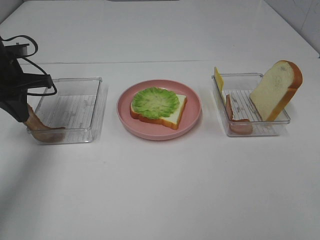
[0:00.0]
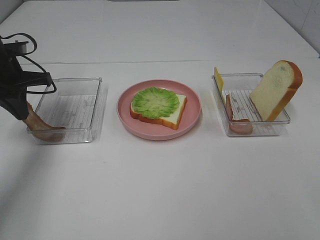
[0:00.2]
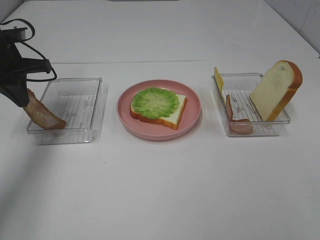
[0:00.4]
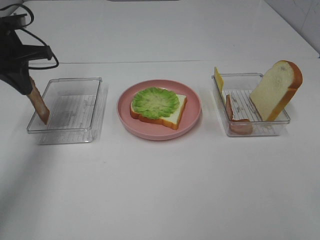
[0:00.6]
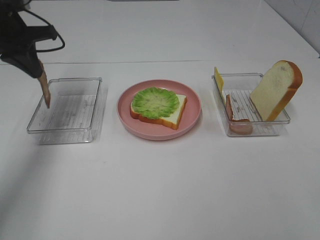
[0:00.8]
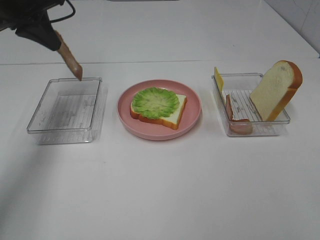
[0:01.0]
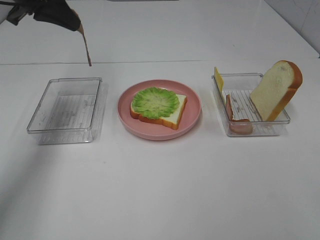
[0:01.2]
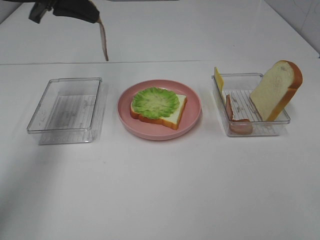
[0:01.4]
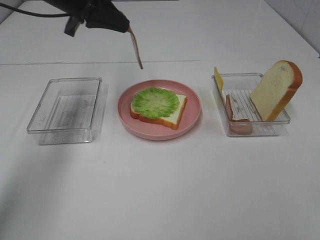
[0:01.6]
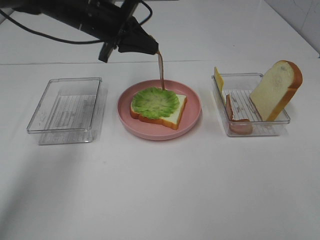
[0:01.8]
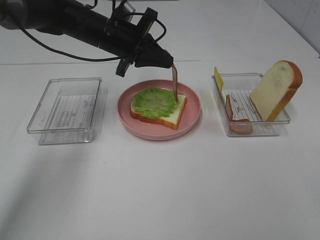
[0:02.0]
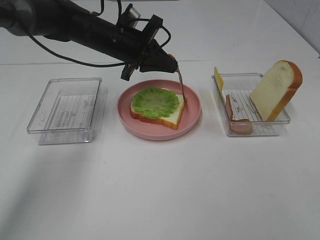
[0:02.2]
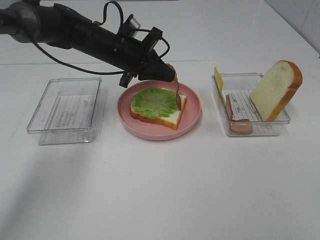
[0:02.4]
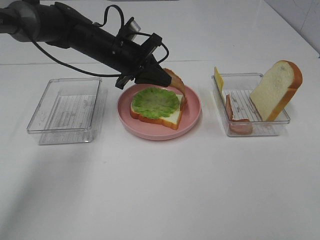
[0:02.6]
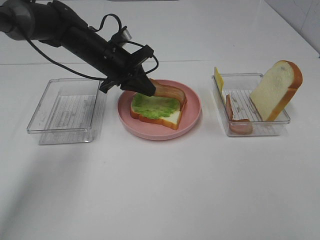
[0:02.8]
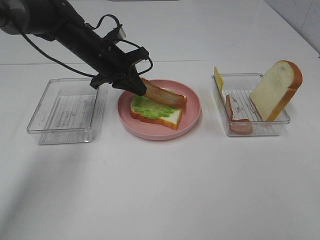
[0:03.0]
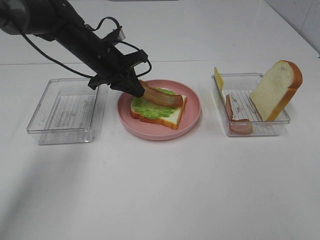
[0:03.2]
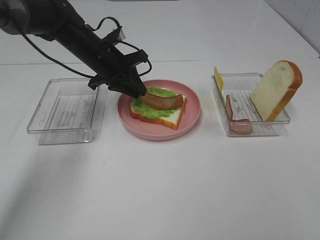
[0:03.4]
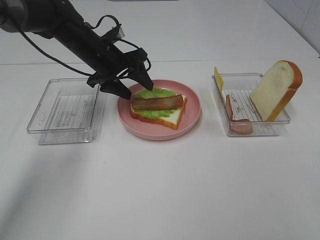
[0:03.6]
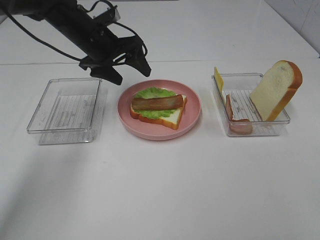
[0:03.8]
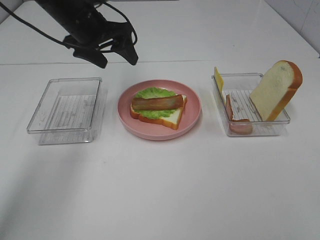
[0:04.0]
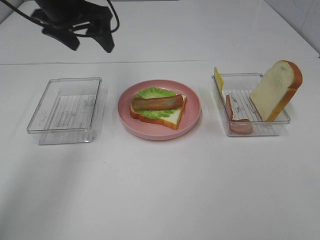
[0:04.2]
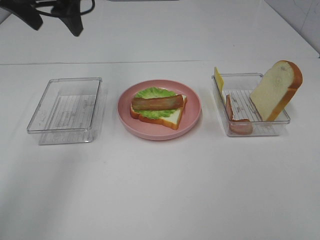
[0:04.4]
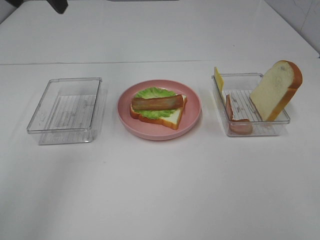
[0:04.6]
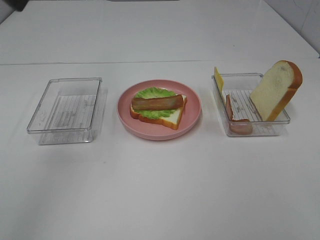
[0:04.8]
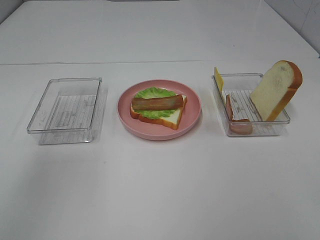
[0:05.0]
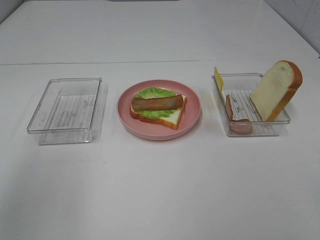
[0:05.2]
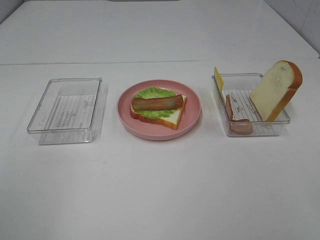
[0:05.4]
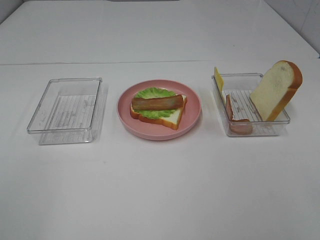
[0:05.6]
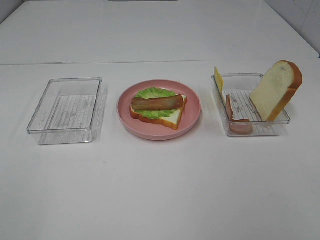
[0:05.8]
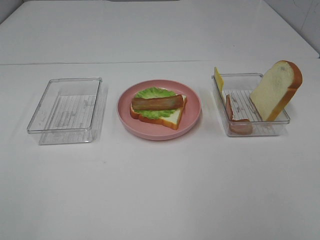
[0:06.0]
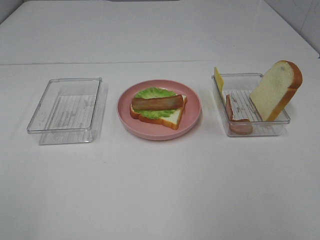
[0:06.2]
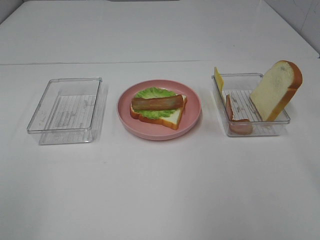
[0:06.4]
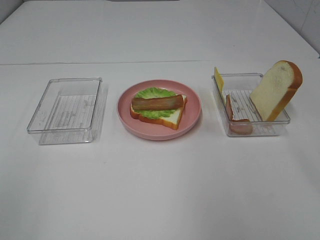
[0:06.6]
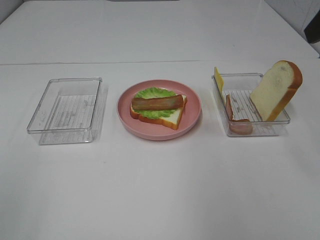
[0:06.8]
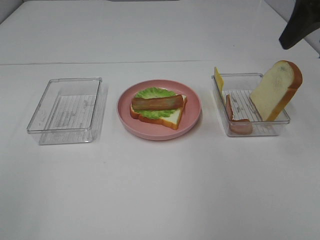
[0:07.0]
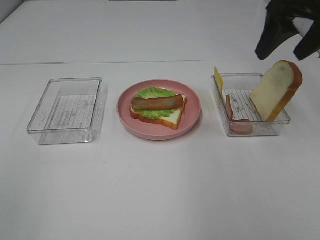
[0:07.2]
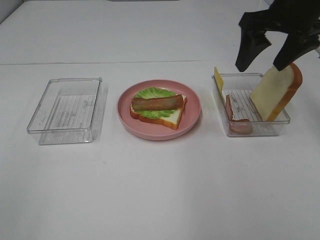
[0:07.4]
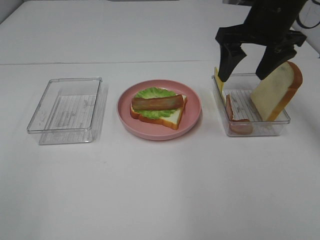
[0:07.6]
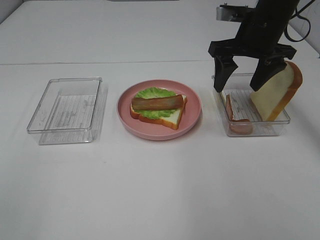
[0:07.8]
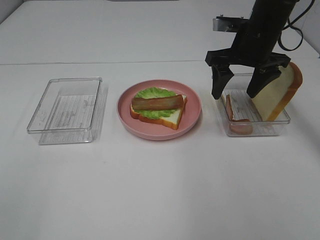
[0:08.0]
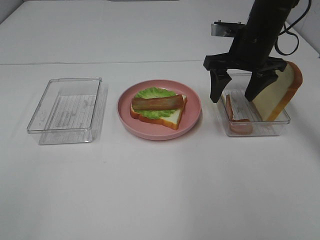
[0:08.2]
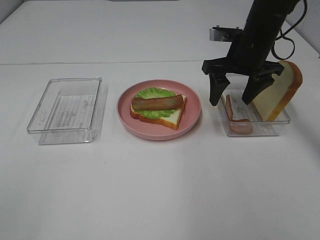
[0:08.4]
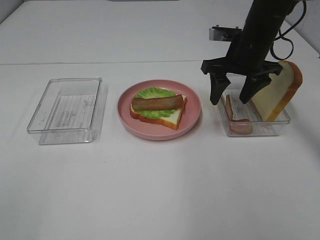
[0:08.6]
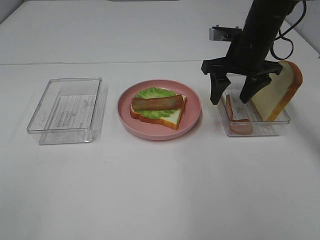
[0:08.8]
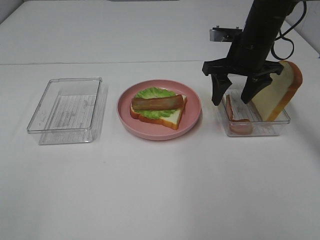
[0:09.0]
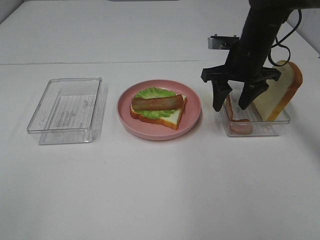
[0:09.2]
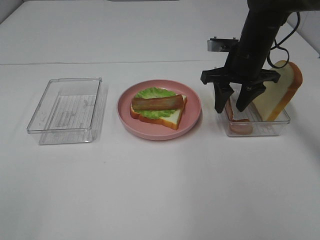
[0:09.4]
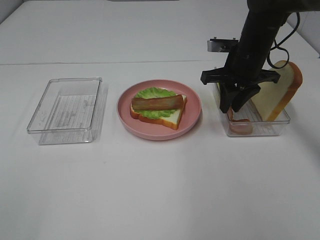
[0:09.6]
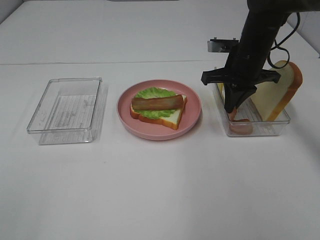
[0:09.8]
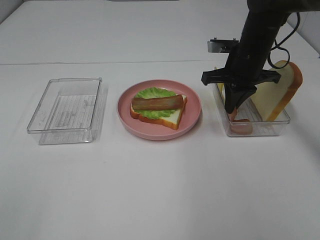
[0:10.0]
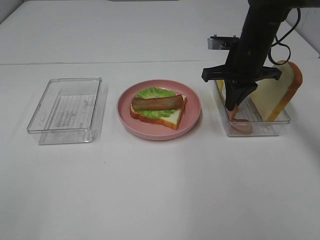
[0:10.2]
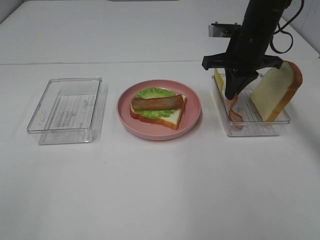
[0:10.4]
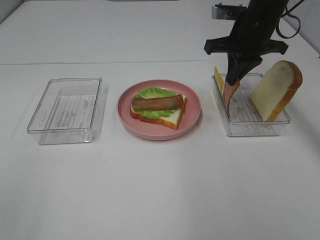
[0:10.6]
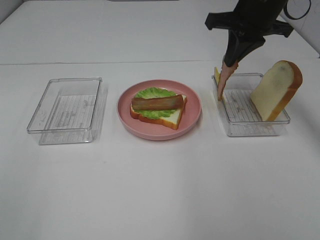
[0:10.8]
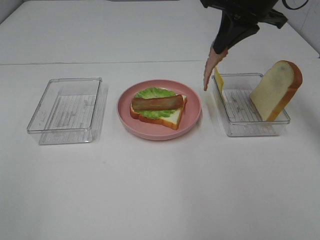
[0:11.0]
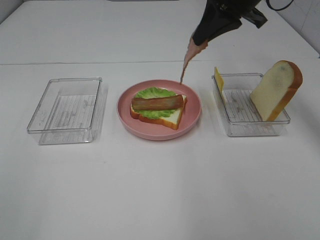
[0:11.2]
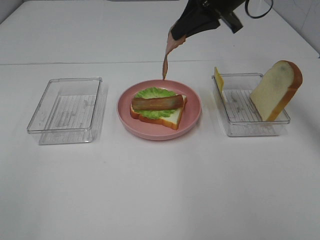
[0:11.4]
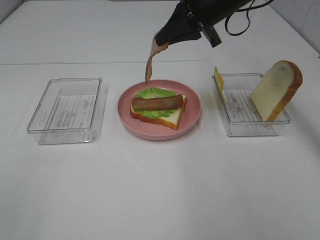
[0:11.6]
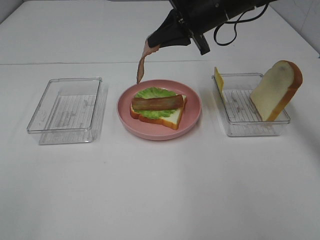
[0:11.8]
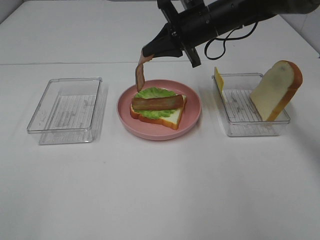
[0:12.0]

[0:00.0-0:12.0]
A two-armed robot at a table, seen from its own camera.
Task of the whole recording: Make sandwiches.
Step, 0:00.0 to 0:03.6: Left hand:place bacon on lettuce slice.
Step, 0:03.8 to 0:10.0: Right hand:grab the bacon.
0:00.0 to 0:01.6: The left gripper goes about 15 cm to the right, upward and forward.
0:01.6 to 0:03.0: The left gripper travels downward by approximately 10 cm.
0:03.0 to 0:04.4: The left gripper travels upward by some 20 cm, and opens its fingers.
0:04.4 to 0:06.0: The left gripper moves backward, about 40 cm.
0:06.0 to 0:07.6: The right gripper goes some 35 cm forward.
0:07.6 to 0:09.0: The right gripper shifts approximately 10 cm downward.
0:09.0 to 0:10.4: The right gripper closes up.
0:10.4 to 0:12.0: The right gripper moves to the left, roughly 5 cm, and travels upward and back again, about 10 cm each way.

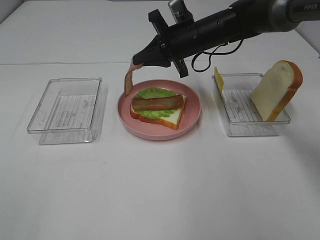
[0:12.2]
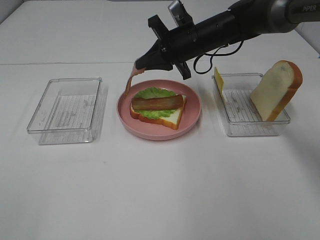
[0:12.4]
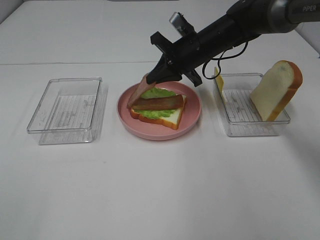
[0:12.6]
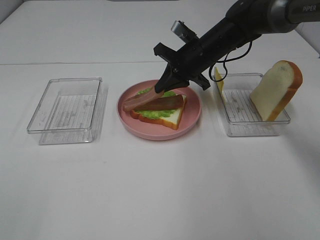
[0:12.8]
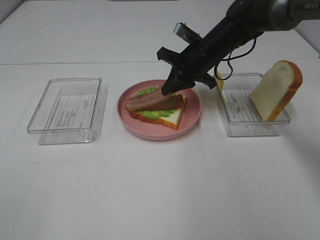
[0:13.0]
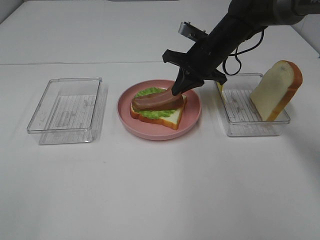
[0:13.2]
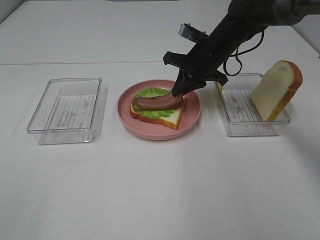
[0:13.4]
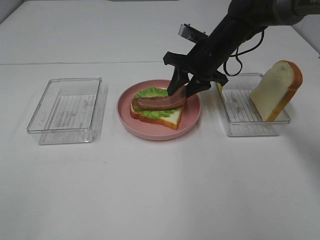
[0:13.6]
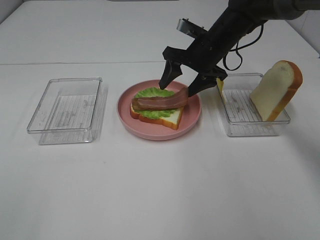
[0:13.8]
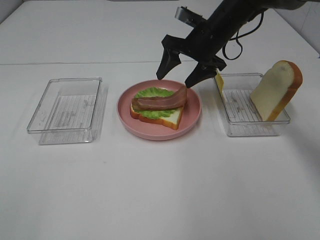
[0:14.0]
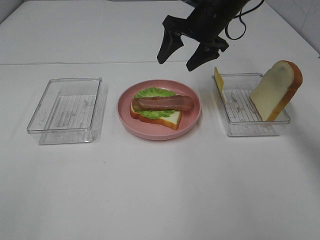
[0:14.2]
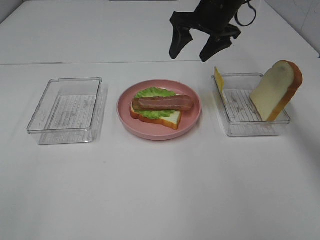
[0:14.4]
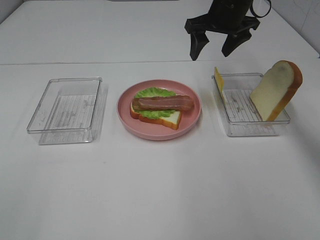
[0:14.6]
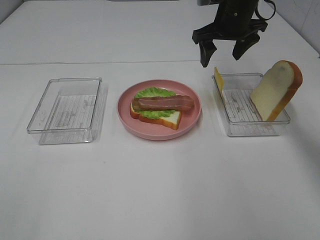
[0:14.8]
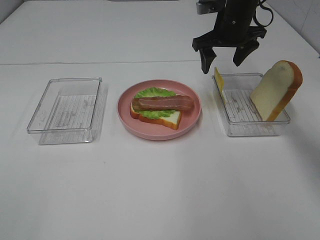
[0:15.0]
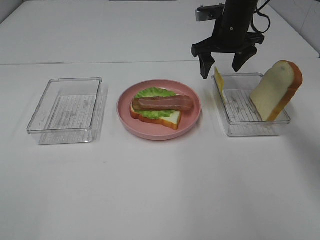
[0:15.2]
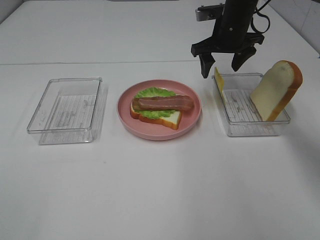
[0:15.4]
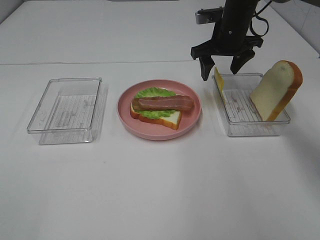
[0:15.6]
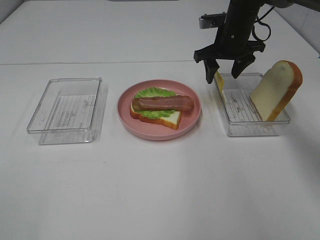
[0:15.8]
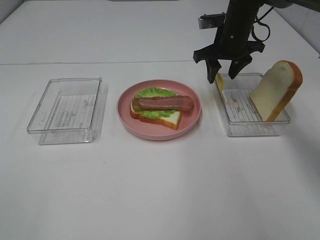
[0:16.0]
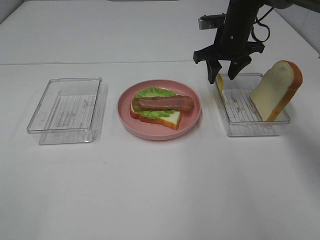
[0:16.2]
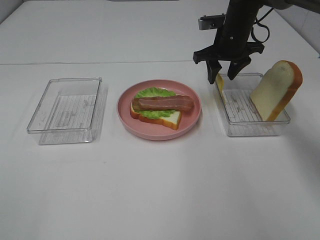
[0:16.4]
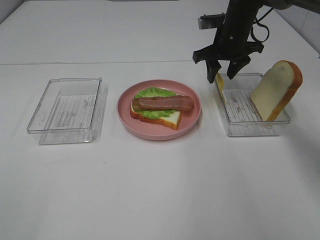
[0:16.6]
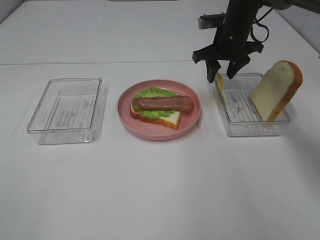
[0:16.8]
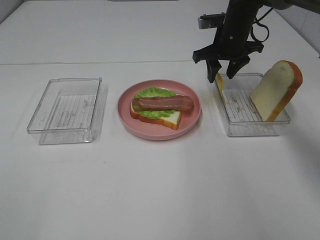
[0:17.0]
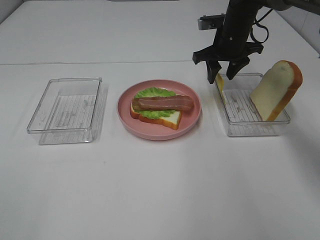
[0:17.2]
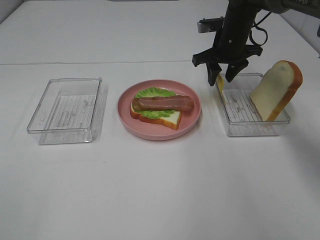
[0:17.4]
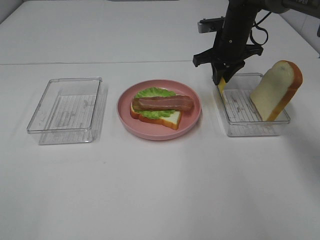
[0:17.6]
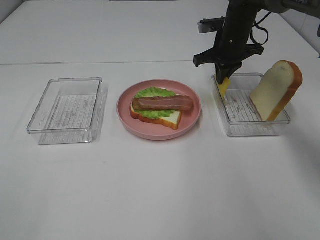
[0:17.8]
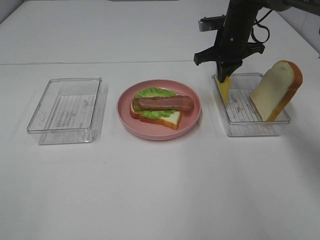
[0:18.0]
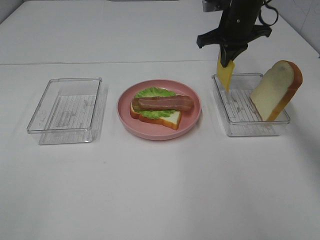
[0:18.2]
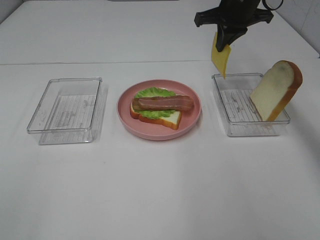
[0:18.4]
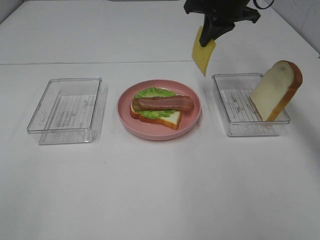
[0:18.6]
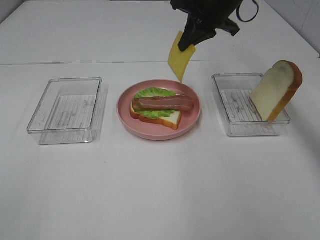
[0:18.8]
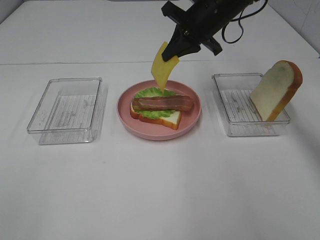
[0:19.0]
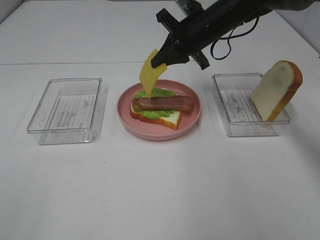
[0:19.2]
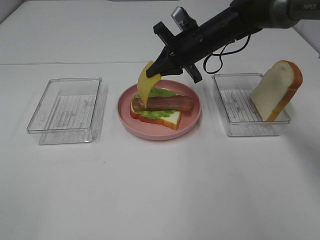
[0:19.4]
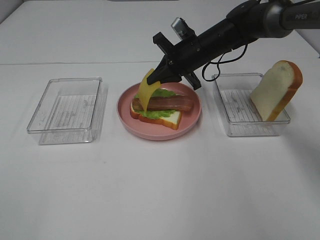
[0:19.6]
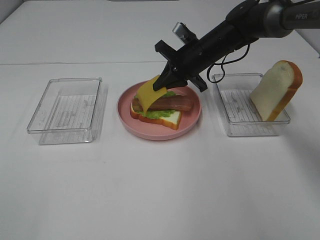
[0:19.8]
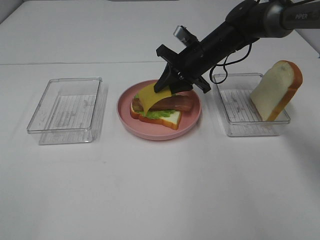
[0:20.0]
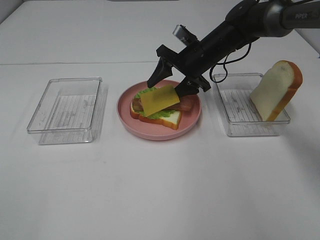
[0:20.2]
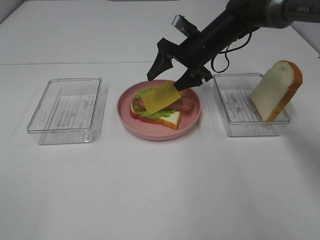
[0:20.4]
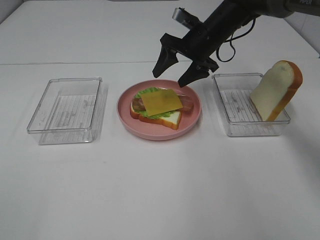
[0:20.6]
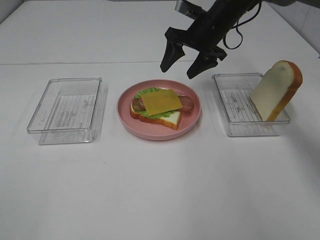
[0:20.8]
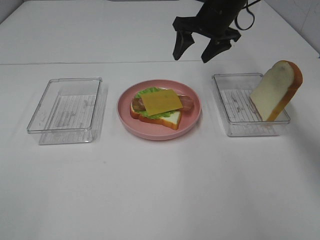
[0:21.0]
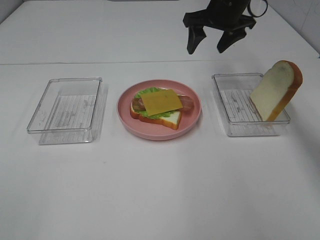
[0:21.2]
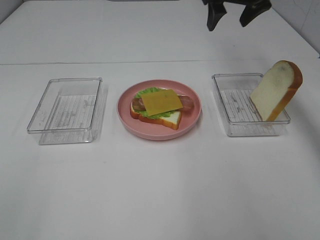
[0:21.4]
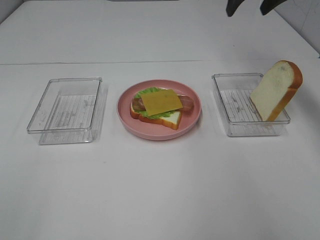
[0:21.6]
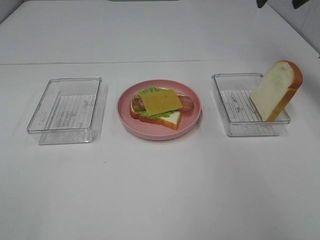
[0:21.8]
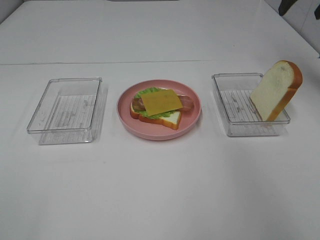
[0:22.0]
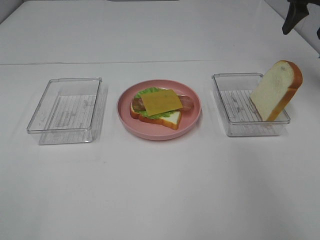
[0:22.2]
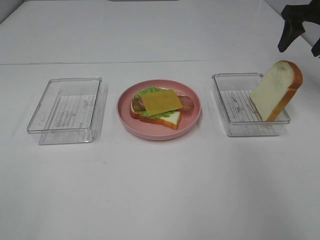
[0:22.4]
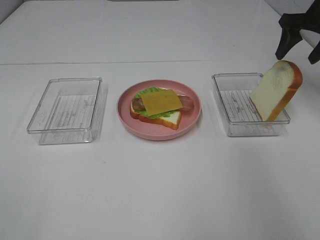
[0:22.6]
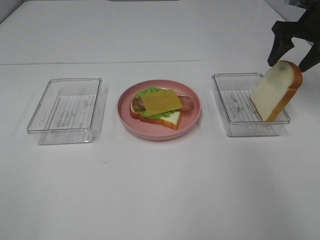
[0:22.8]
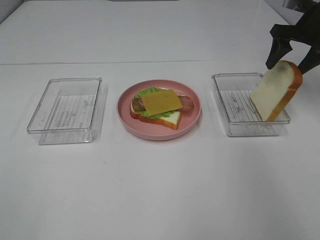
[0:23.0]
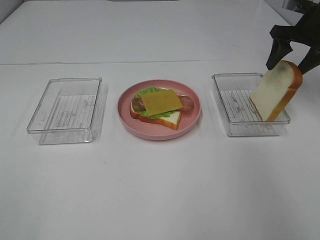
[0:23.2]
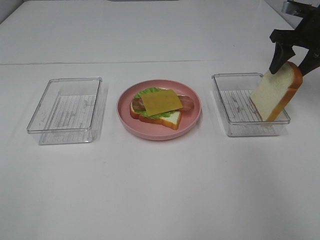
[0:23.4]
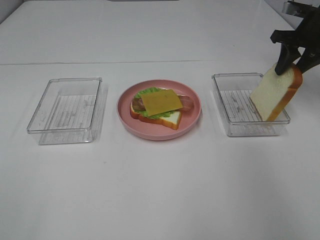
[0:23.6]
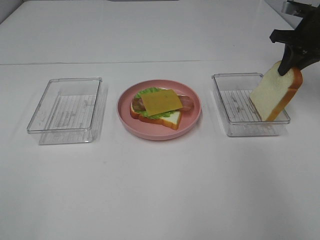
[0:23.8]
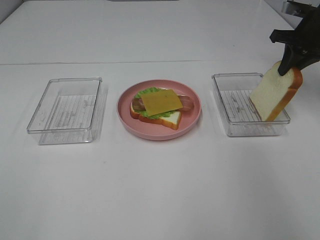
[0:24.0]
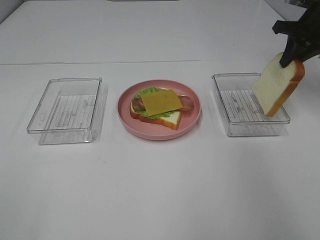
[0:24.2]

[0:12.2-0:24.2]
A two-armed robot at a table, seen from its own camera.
Task of the whole recording: Make sandwiches.
Step, 0:14.2 to 0:18.0: Right hand:grab the cheese slice.
Step, 0:18.2 to 0:20.6: Right hand:place the cheese slice on top of the bacon.
Step, 0:20.8 to 0:23.8: Right hand:grab the bread slice.
0:12.2 to 0:13.8: The right gripper opens its fingers.
0:13.8 to 0:15.2: The right gripper changes place by roughly 5 cm.
0:15.2 to 0:16.6: The grippers make only small movements.
0:16.6 to 0:18.2: The right gripper closes.
0:18.2 to 0:19.8: The right gripper goes approximately 10 cm downward and to the left.
0:19.8 to 0:21.2: The right gripper heads upward, covering some 10 cm, and opens.
0:21.2 to 0:22.6: The right gripper is displaced to the right by some 20 cm.
0:22.6 to 0:24.2: The right gripper closes.
